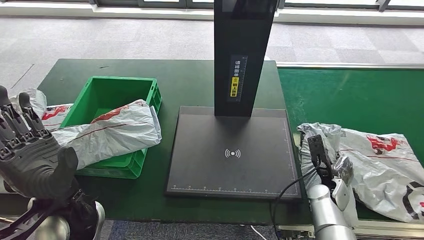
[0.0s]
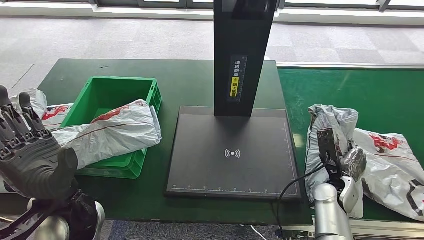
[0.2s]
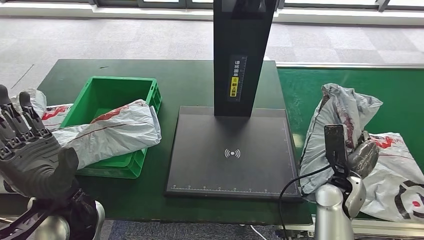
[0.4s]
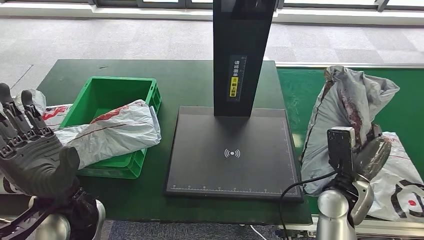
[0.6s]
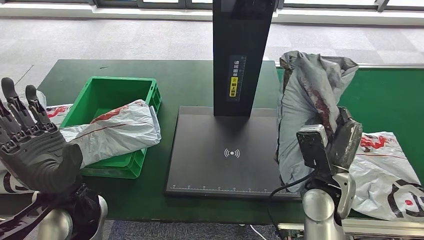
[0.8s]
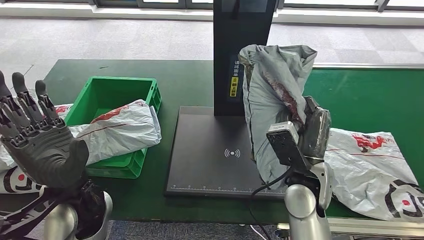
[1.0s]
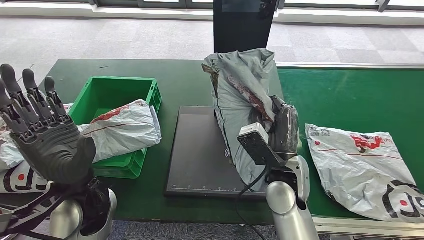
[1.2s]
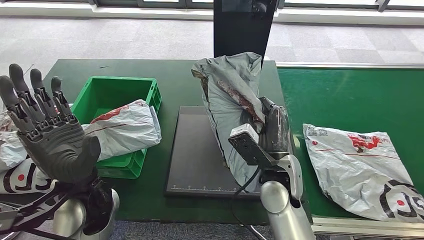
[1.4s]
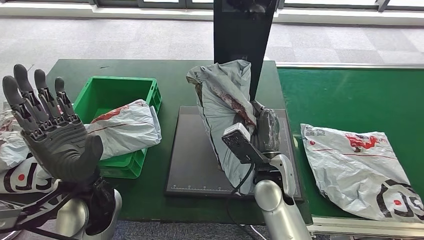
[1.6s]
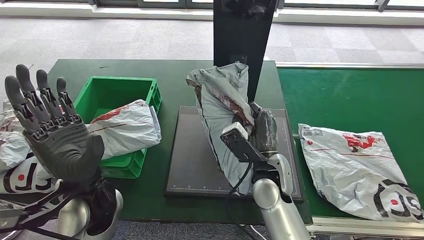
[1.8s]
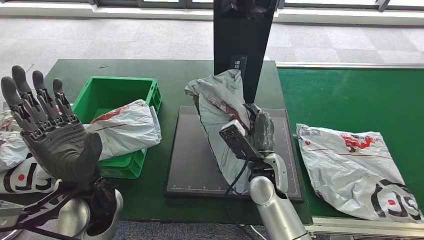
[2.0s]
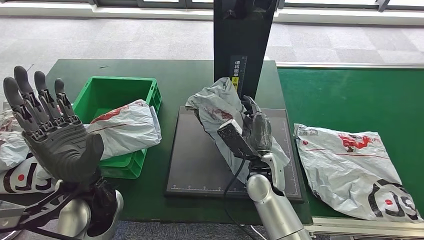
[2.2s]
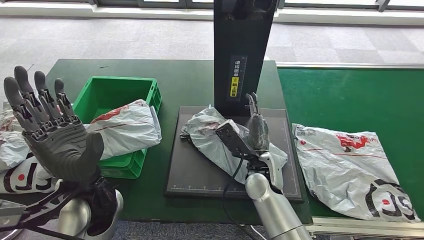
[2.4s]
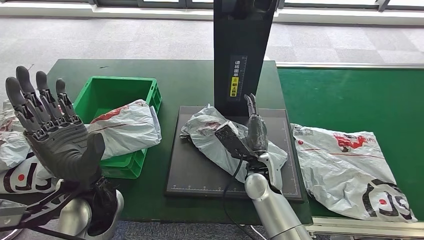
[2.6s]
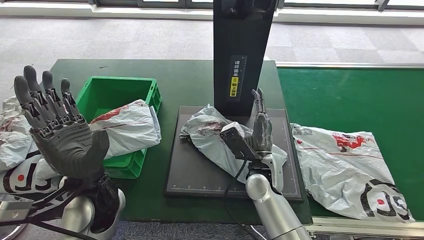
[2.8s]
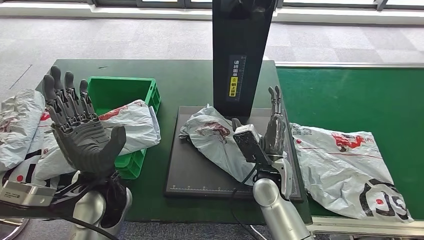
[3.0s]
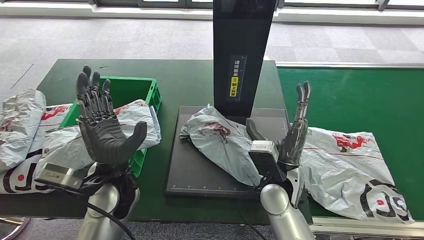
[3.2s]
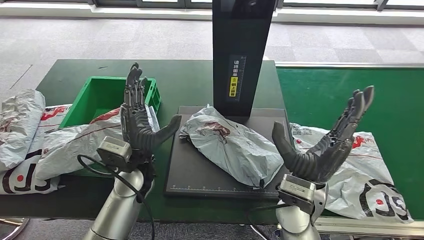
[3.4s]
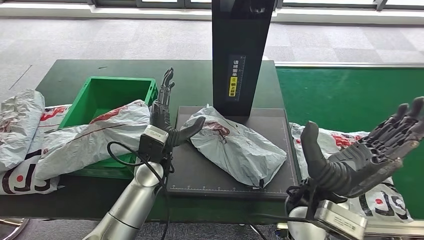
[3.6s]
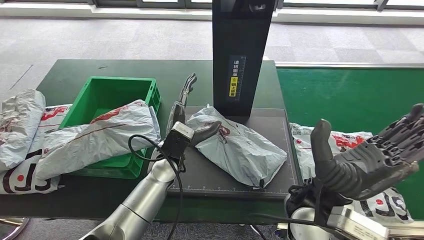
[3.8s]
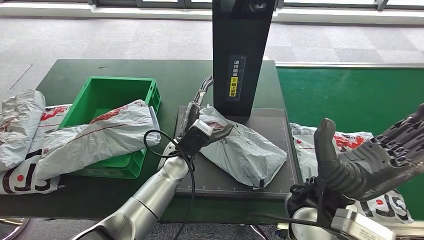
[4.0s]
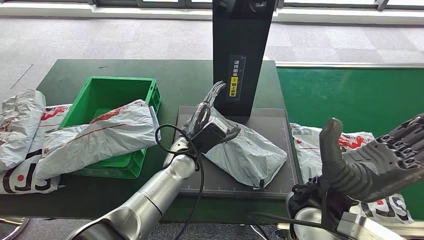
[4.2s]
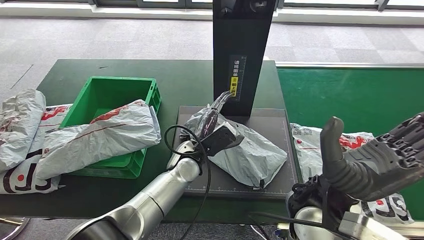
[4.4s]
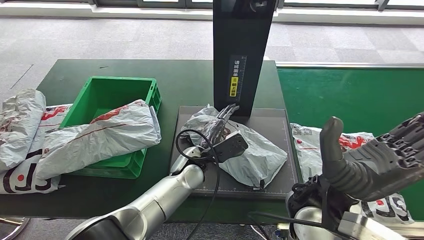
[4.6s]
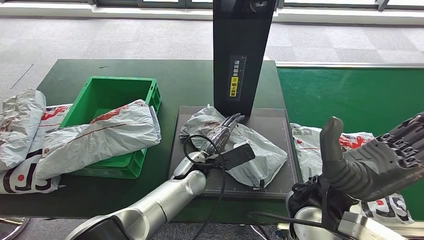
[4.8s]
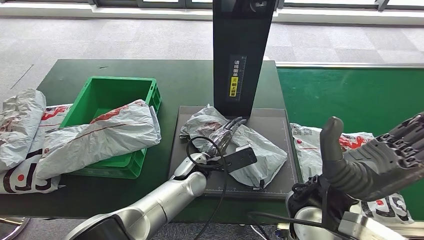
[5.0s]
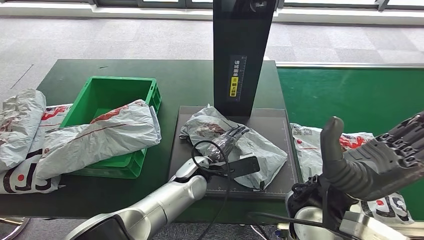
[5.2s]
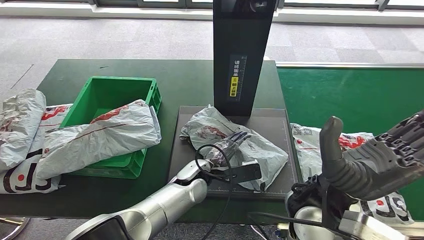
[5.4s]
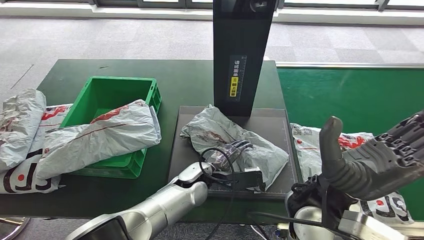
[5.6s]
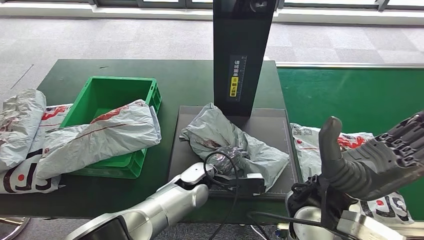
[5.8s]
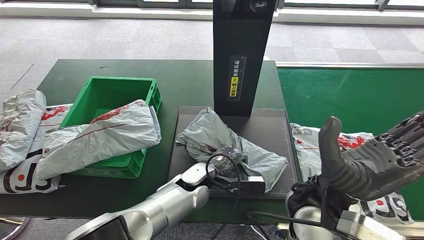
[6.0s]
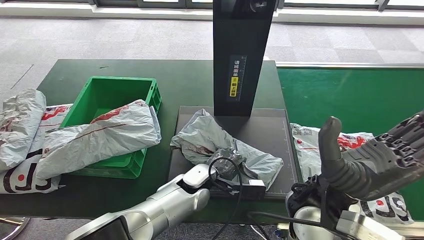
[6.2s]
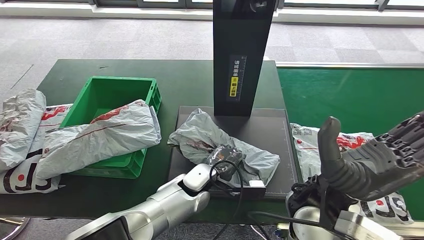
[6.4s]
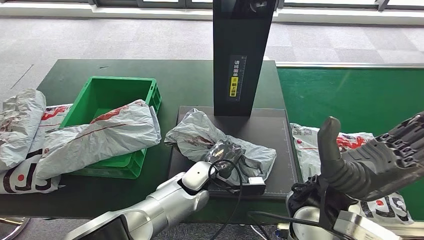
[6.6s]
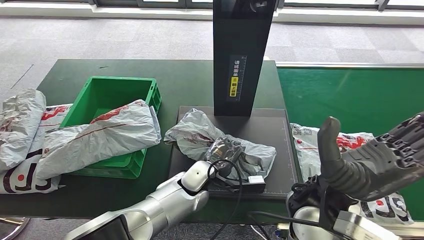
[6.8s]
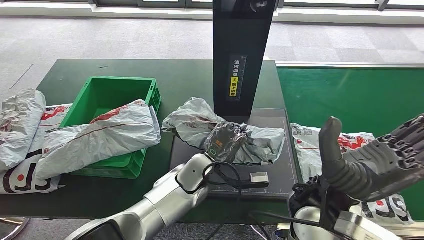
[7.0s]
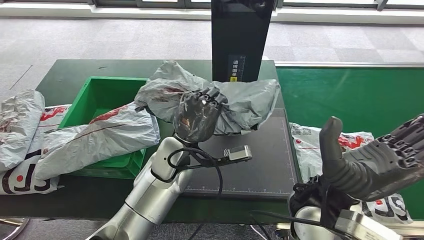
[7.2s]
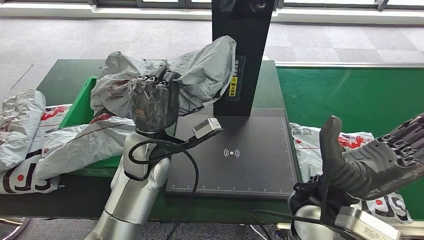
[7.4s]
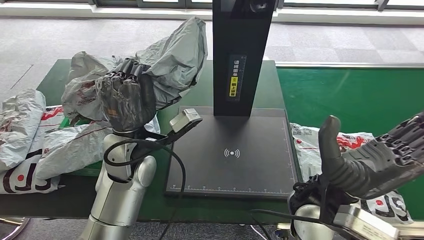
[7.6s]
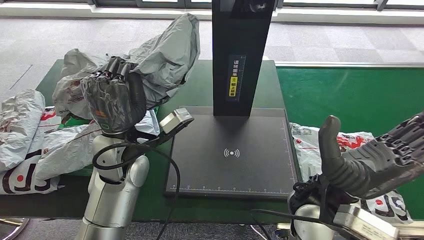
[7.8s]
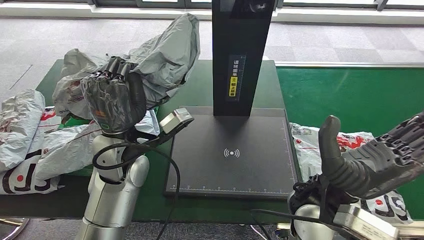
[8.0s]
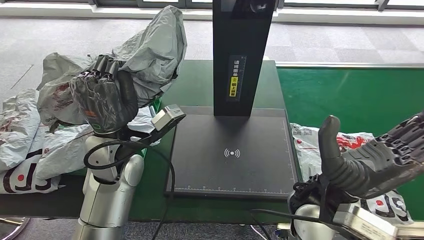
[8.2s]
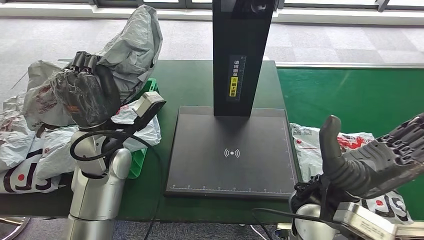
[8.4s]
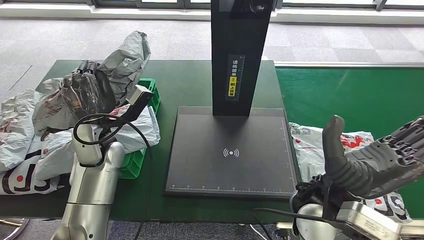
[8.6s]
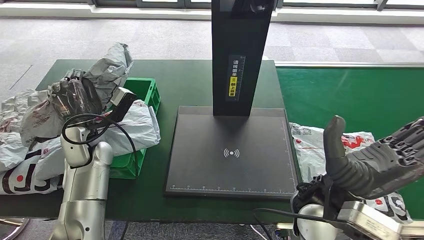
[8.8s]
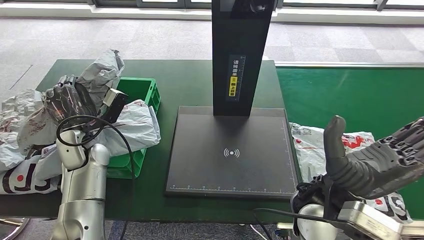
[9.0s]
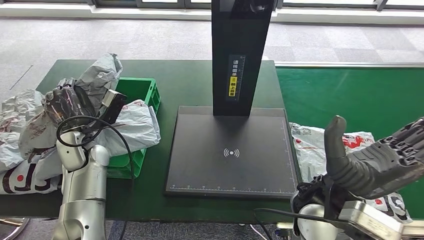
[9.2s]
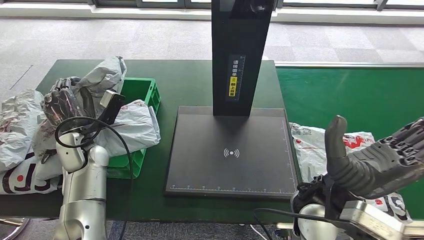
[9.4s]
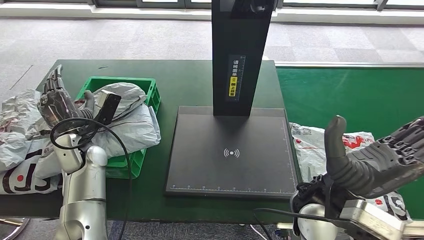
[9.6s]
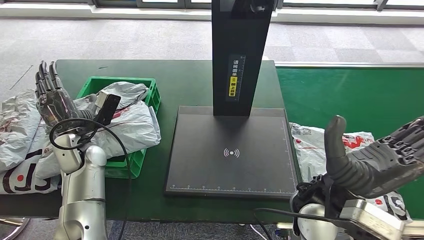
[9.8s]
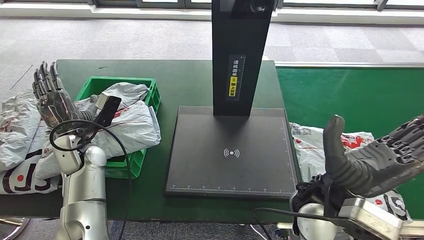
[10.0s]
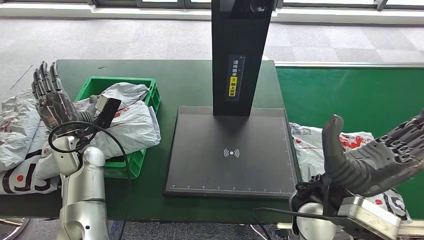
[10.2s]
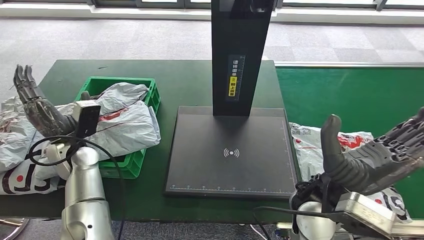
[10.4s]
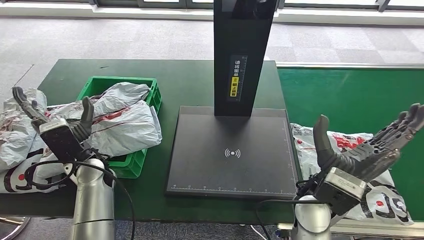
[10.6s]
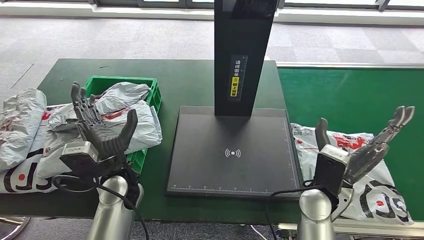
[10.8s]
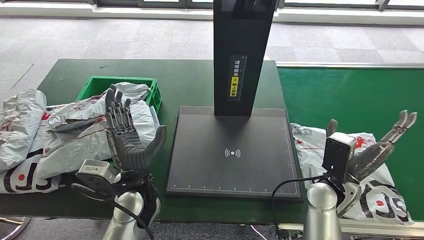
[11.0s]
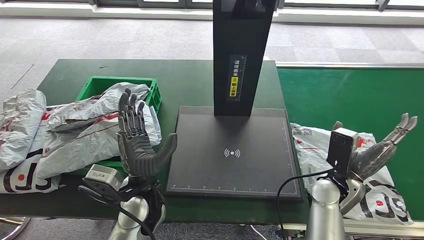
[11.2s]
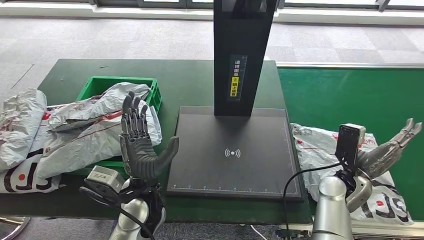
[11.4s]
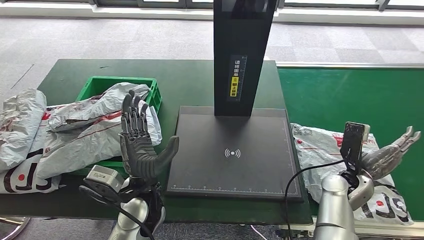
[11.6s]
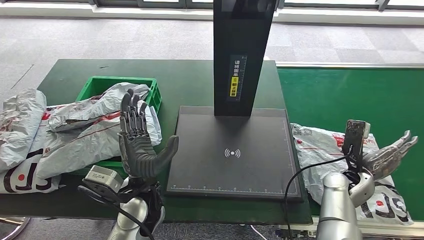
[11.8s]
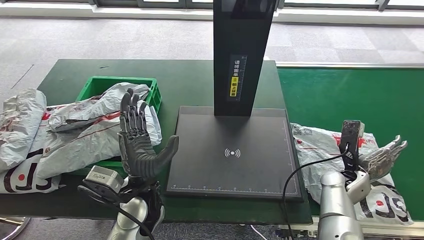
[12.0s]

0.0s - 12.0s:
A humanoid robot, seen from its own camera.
Step, 1.4s - 3.0s: Place the parcel onto the inbound machine.
Step, 3.4s - 8.6s: Pick up the parcel from the inbound machine.
Step, 8.8s - 11.0s: Place the parcel into the delivery box.
4.4s - 6.0s: The left hand changes place by about 5 cm.

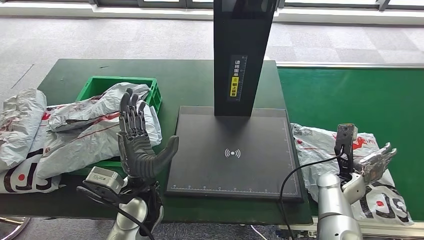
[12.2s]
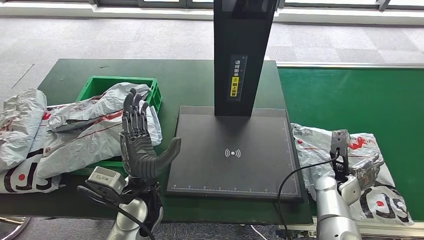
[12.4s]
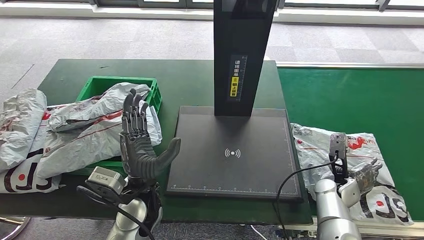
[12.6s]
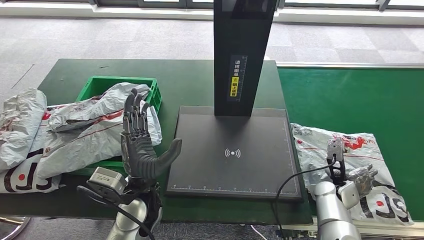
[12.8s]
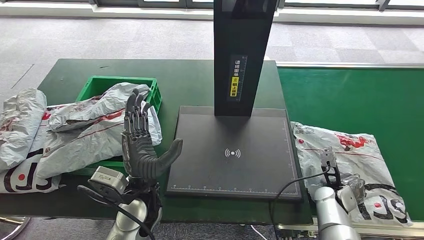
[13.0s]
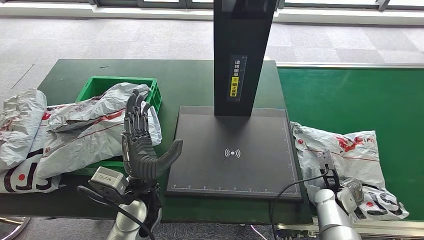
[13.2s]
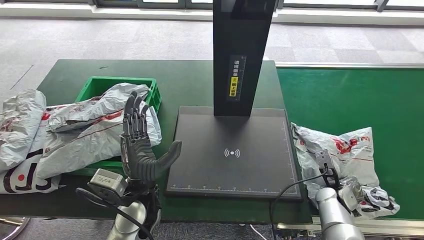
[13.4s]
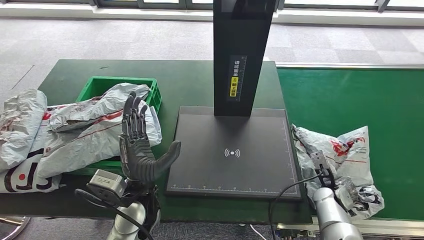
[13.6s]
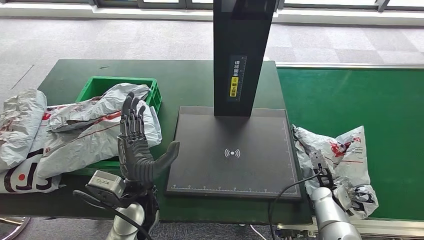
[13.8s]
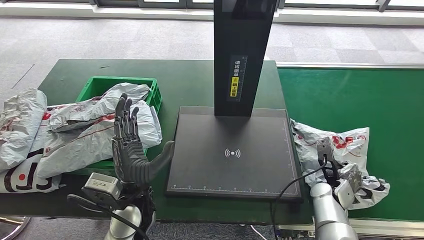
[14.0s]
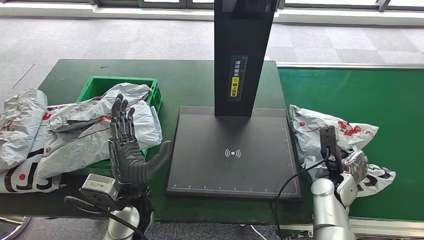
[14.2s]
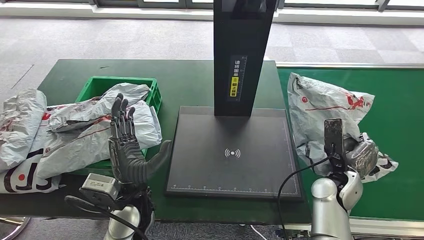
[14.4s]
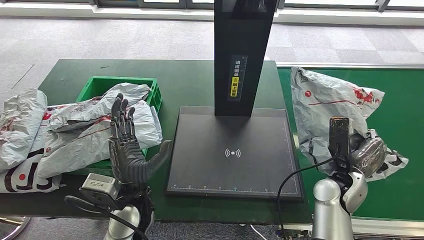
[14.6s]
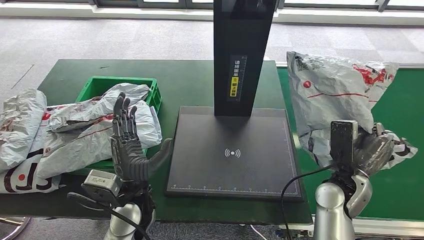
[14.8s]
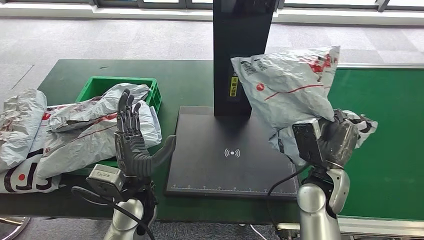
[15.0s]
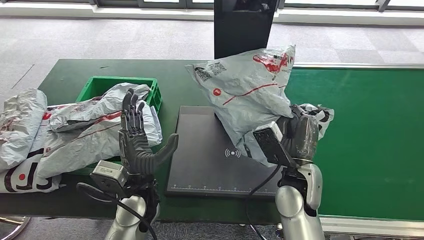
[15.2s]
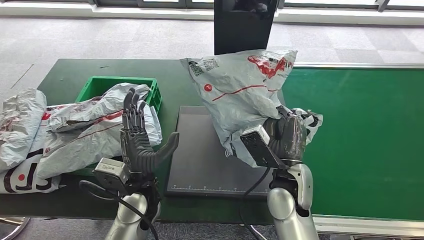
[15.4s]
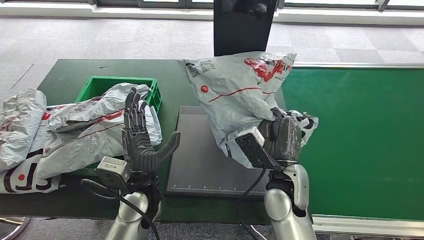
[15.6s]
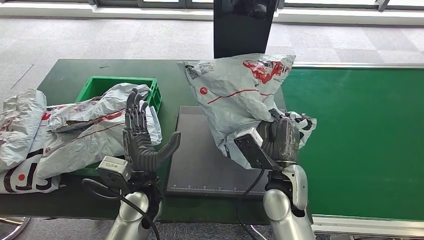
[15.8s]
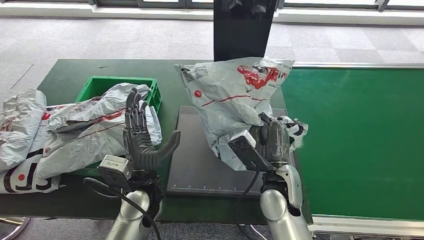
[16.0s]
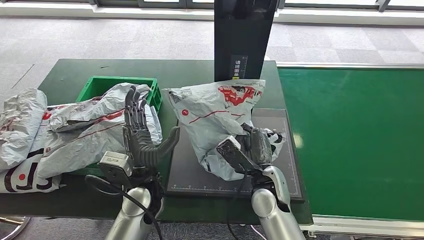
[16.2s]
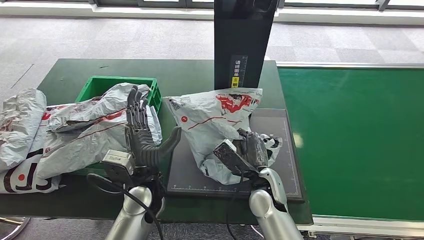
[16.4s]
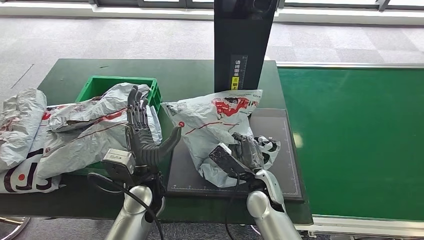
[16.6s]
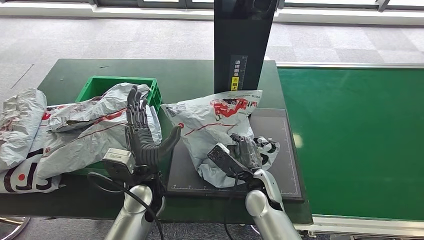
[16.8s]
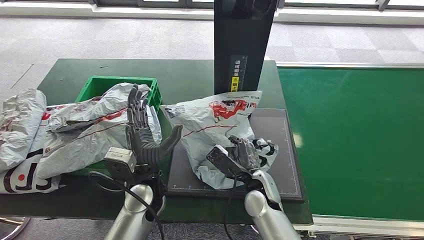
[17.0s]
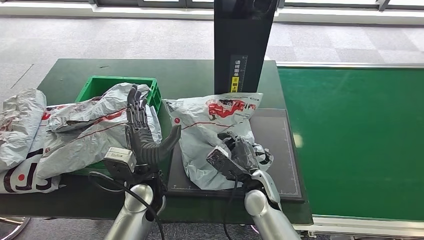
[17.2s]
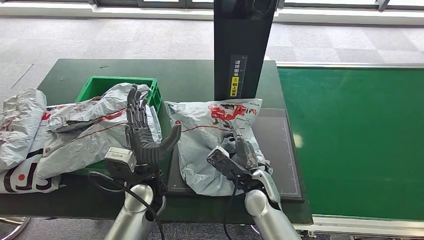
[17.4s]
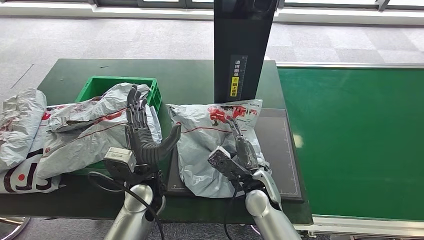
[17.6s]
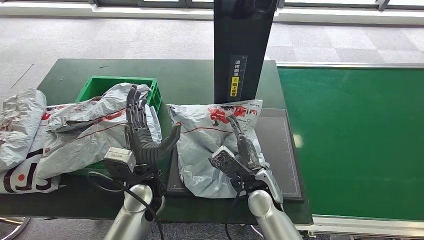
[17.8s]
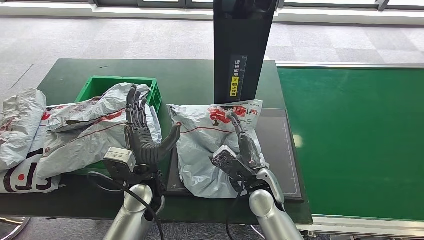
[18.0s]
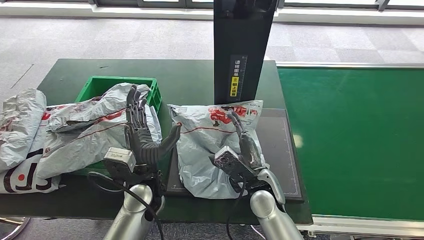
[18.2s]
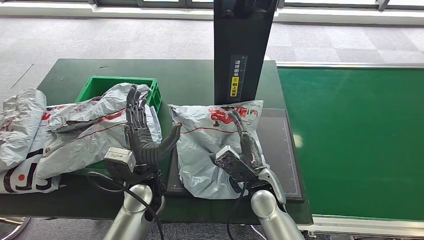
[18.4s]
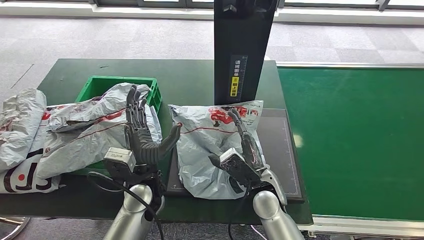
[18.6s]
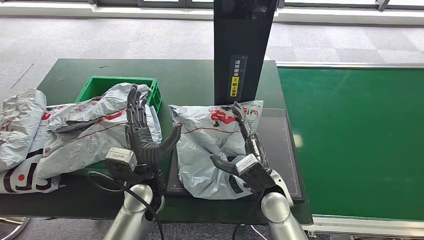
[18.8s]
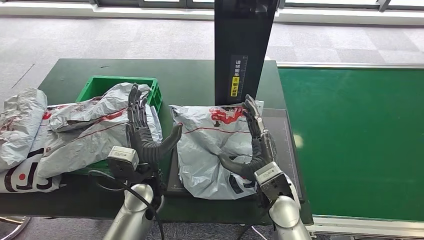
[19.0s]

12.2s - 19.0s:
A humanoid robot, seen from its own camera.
Step, 12.2s - 14.8s: Pick up the parcel from the conveyor belt.
Step, 15.0s - 17.0s: Place the parcel onto the inbound machine.
12.2s - 13.6s: The right hand travels downward by about 5 cm.
13.6s - 15.0s: The right hand heads upward and to the left, covering about 20 cm.
16.2s - 17.6s: There are only small adjustments of the hands.
17.6s - 19.0s: The right hand is displaced upward by some 5 cm.
